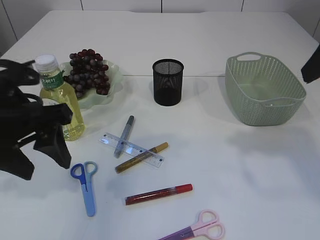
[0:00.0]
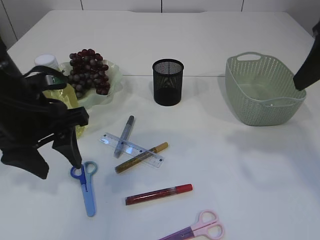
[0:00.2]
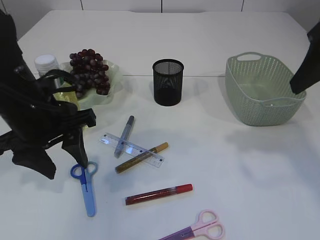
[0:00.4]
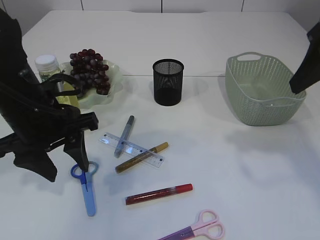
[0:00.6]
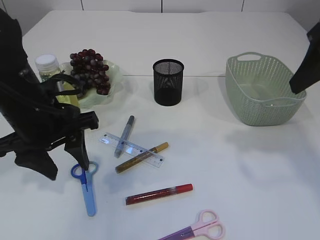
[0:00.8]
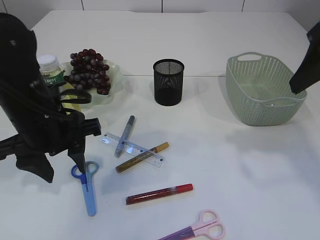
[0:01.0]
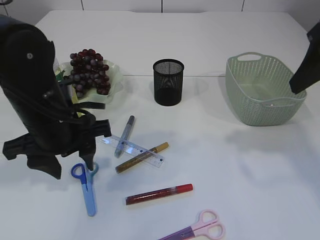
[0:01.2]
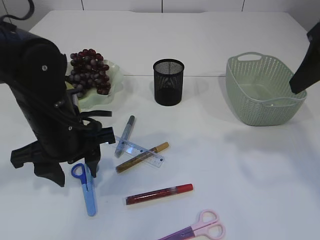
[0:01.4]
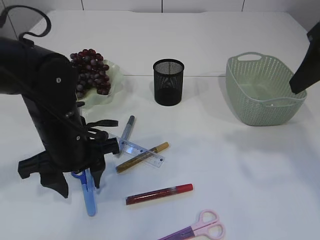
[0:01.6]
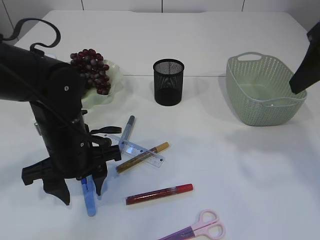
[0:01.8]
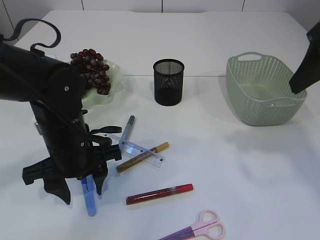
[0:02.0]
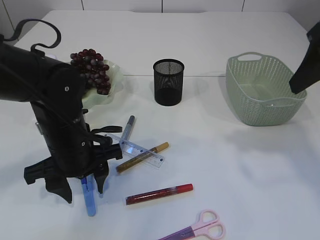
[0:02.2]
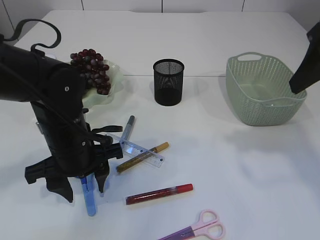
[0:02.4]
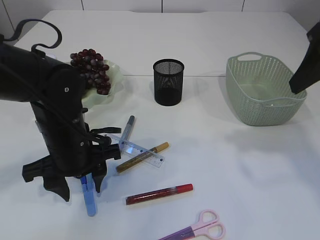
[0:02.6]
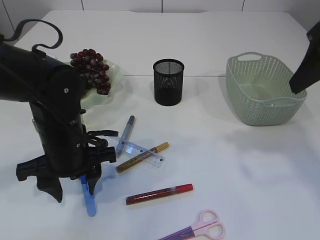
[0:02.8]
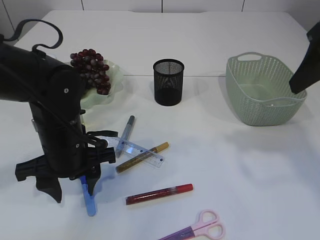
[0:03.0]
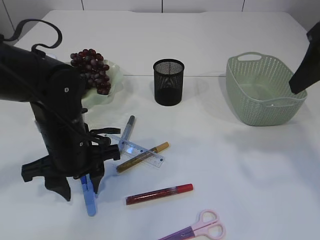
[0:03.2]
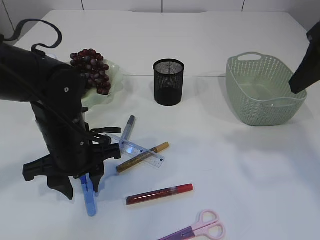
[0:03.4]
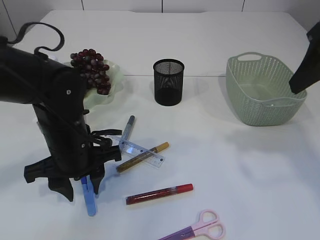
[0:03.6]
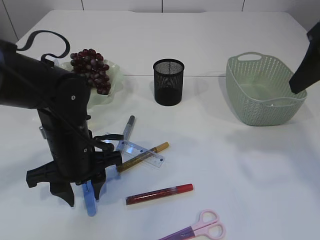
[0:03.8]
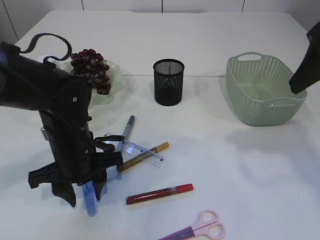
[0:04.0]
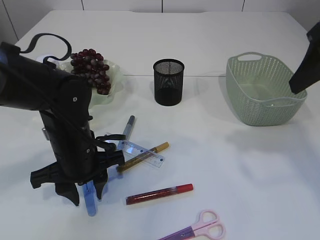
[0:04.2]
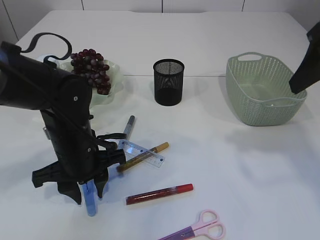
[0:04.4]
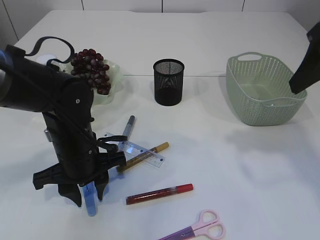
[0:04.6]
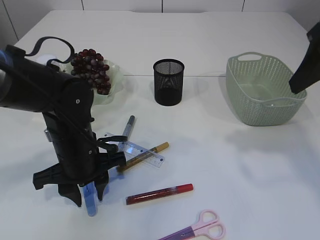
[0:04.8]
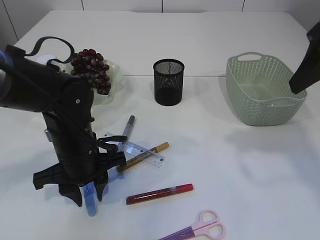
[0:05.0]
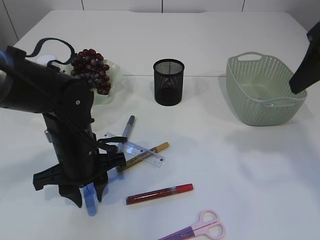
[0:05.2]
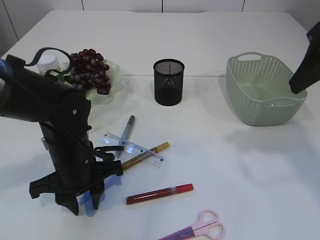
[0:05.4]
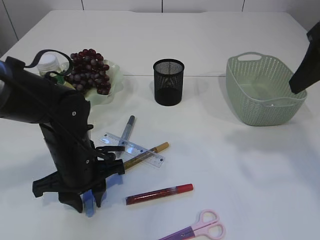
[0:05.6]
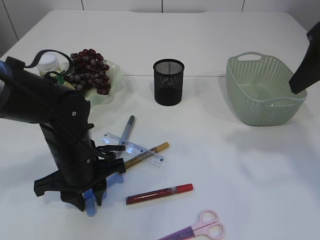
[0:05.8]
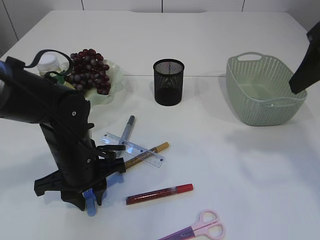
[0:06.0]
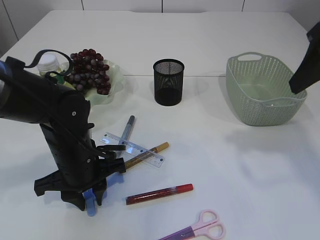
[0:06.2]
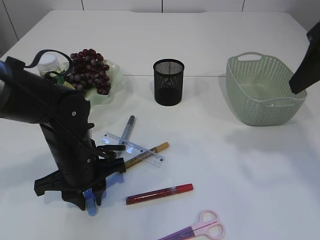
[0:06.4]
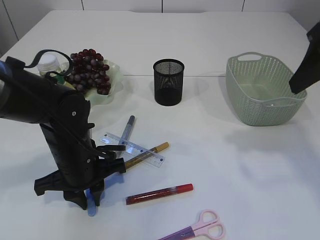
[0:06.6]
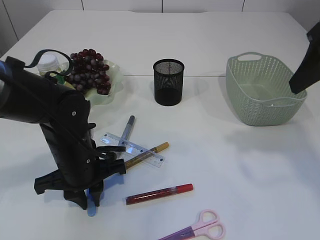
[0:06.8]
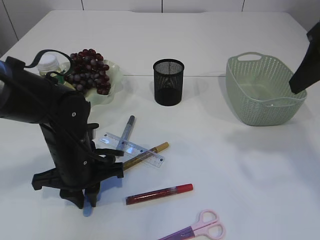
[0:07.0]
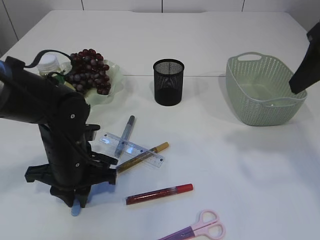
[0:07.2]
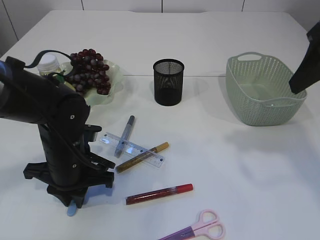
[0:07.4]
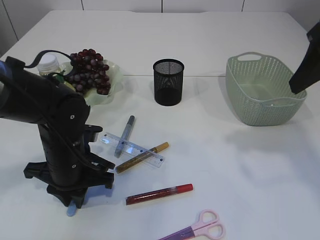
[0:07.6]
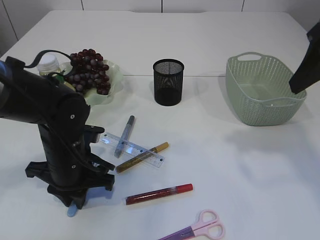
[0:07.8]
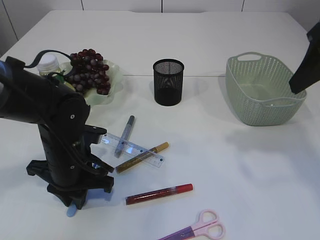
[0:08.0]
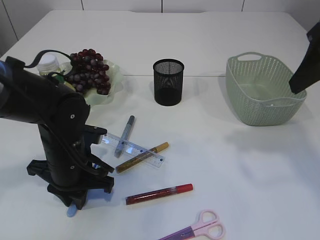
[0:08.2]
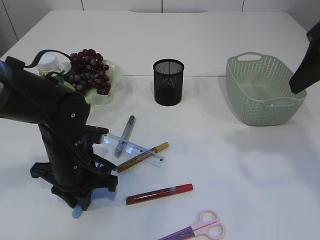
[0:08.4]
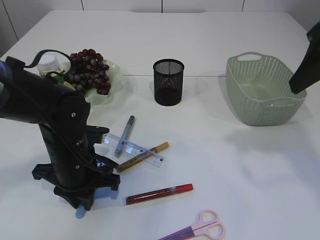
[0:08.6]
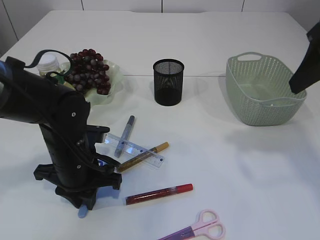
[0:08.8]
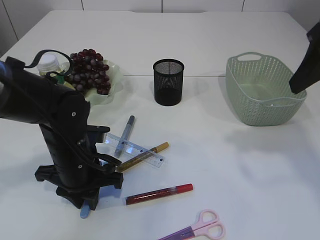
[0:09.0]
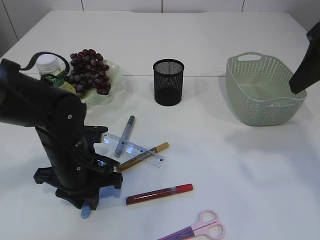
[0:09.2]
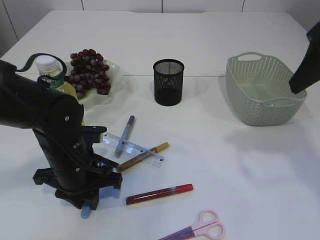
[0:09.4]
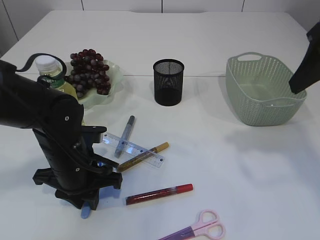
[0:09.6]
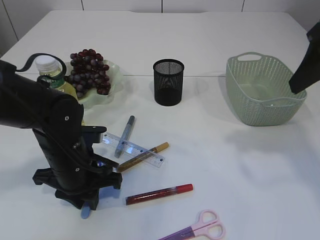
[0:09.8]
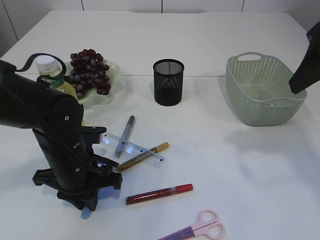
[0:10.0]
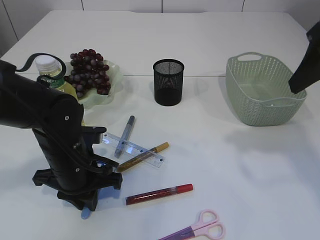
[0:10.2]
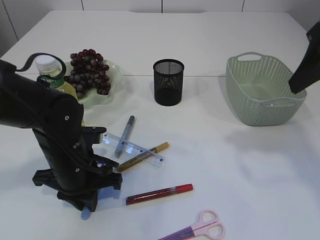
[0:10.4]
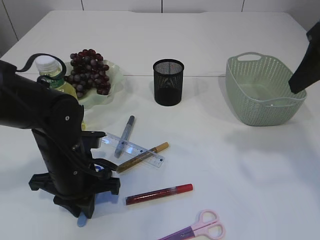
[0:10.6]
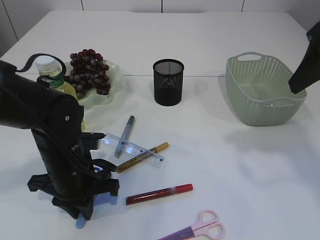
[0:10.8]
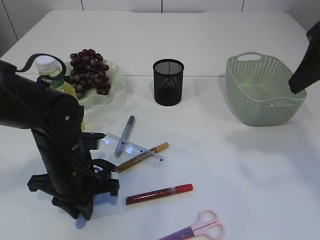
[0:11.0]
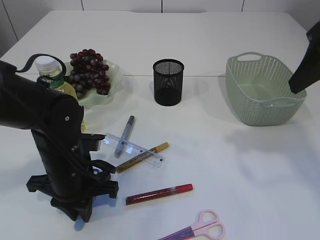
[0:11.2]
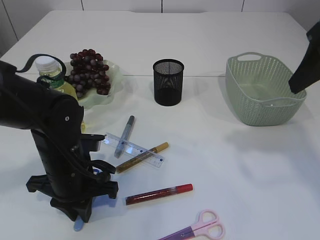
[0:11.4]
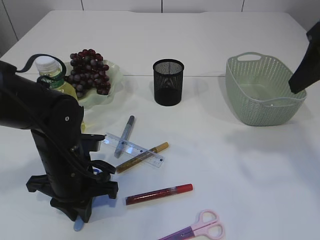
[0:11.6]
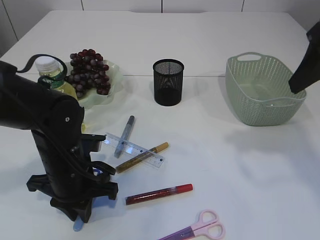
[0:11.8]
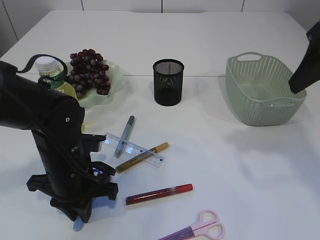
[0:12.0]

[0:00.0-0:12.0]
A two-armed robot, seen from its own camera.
0:00.0 to 0:01.6: The left gripper goes some 10 cm downward and to the right.
0:01.6 to 0:06.0: The grippers stay close to where they were, moving slightly.
0:07.6 to 0:09.0: There are only small adjustments of the grippers.
0:09.0 to 0:10.4: Both grippers stay about where they are.
0:10.4 to 0:12.0: There are only small adjustments of the grippers.

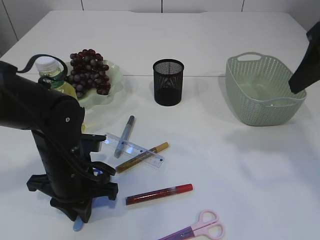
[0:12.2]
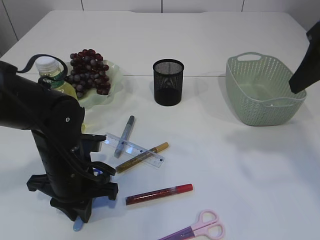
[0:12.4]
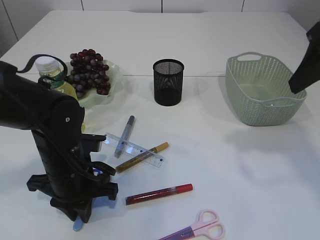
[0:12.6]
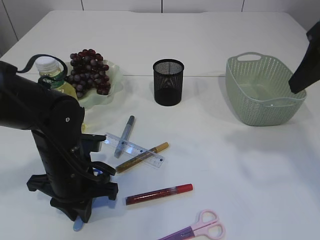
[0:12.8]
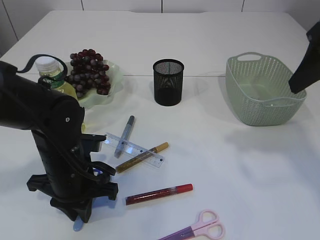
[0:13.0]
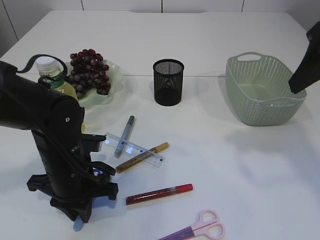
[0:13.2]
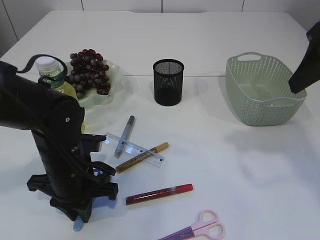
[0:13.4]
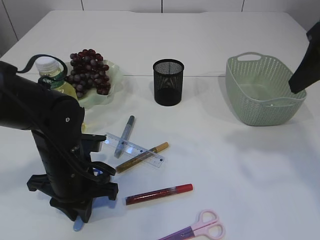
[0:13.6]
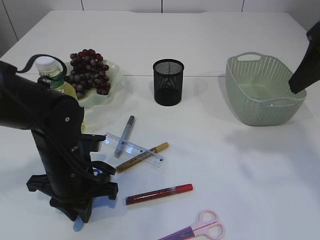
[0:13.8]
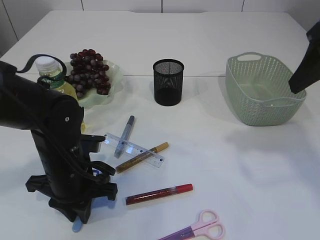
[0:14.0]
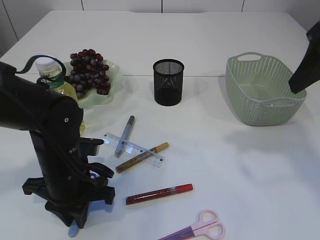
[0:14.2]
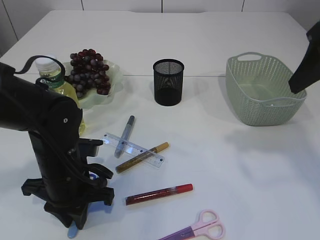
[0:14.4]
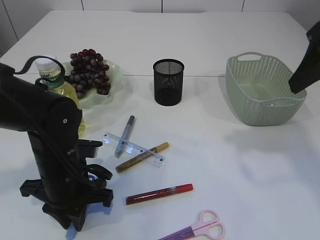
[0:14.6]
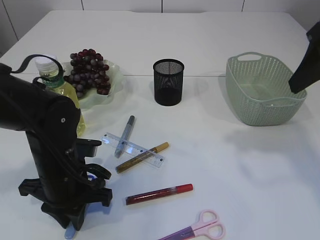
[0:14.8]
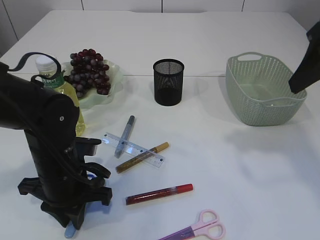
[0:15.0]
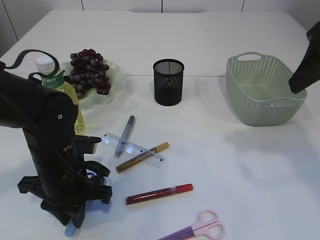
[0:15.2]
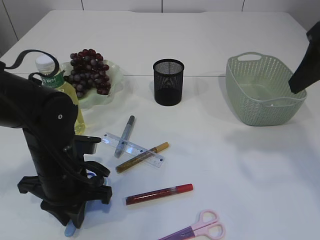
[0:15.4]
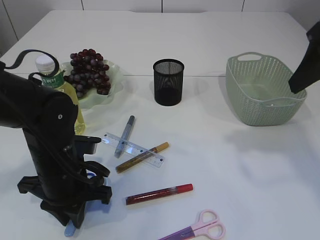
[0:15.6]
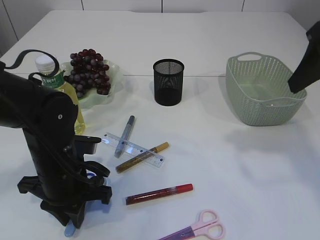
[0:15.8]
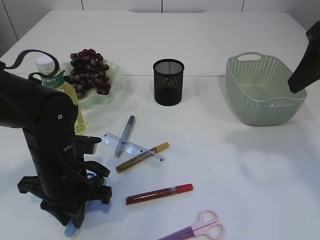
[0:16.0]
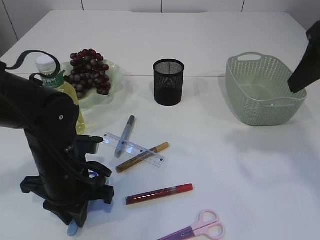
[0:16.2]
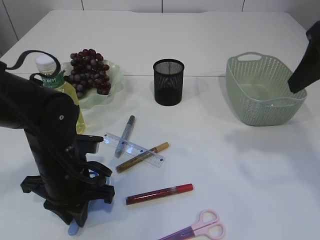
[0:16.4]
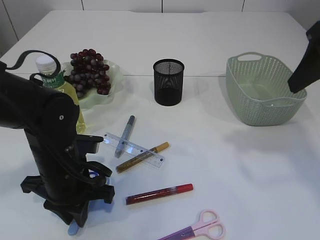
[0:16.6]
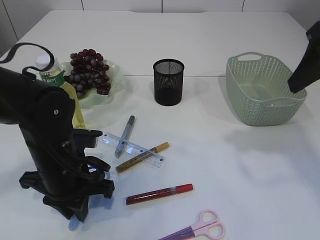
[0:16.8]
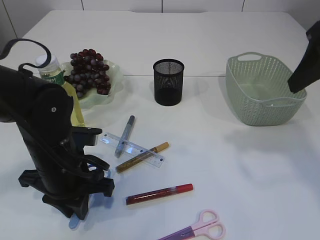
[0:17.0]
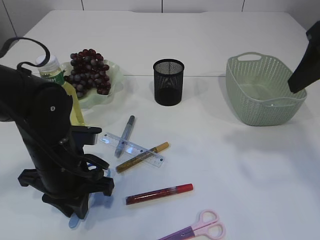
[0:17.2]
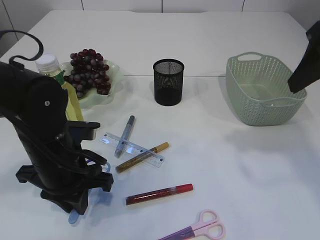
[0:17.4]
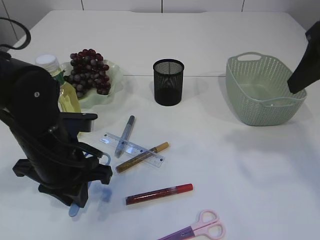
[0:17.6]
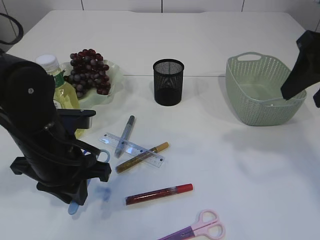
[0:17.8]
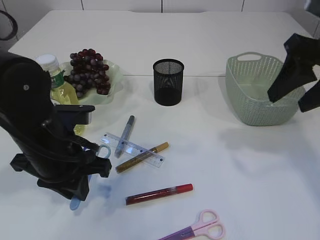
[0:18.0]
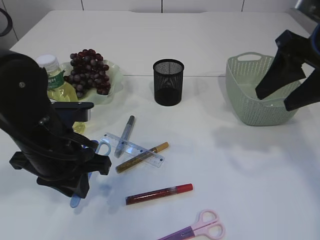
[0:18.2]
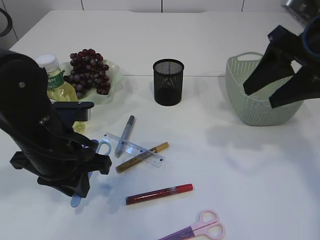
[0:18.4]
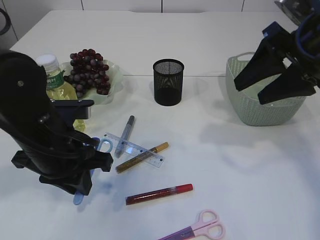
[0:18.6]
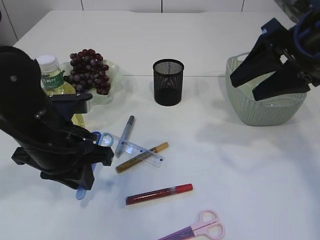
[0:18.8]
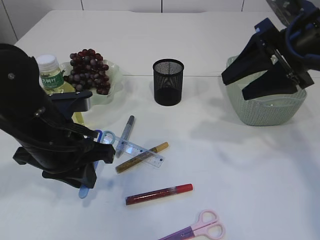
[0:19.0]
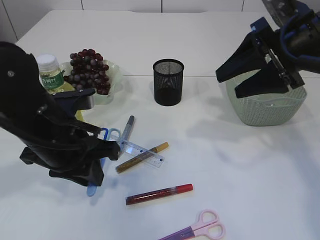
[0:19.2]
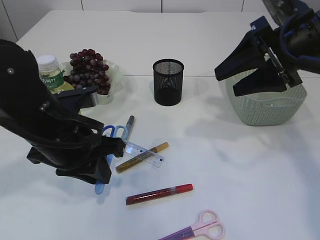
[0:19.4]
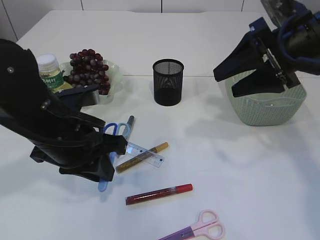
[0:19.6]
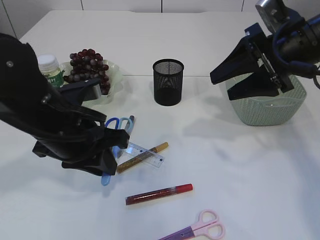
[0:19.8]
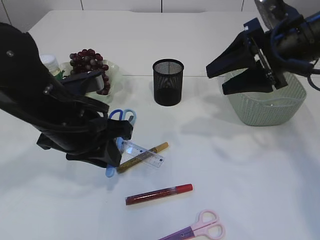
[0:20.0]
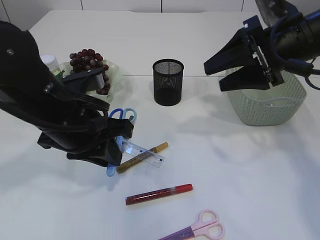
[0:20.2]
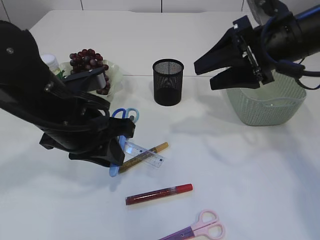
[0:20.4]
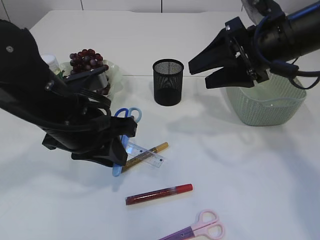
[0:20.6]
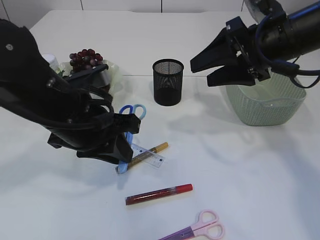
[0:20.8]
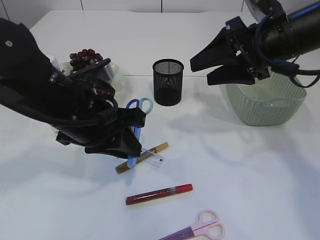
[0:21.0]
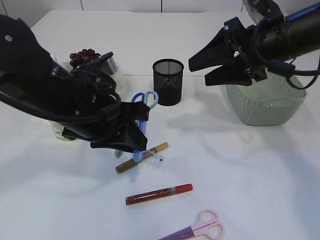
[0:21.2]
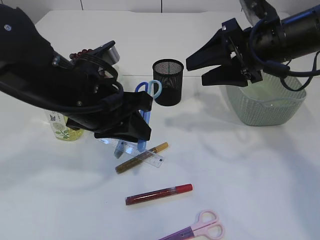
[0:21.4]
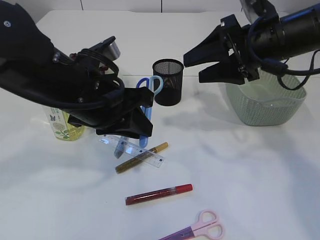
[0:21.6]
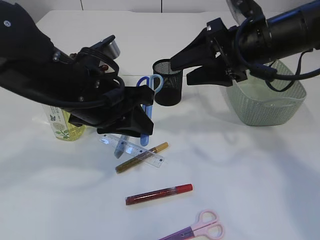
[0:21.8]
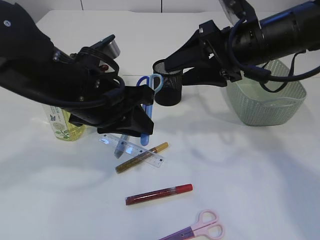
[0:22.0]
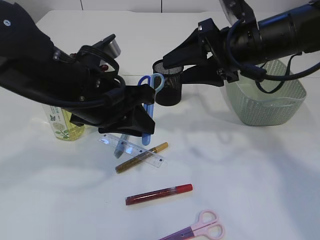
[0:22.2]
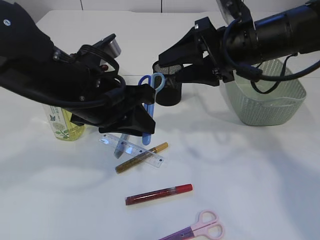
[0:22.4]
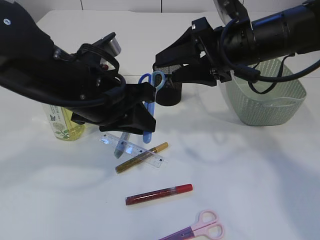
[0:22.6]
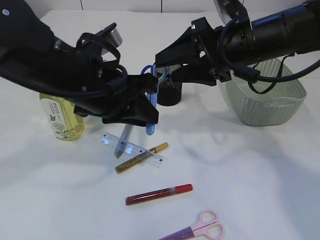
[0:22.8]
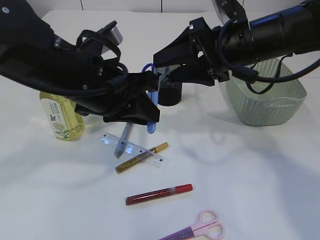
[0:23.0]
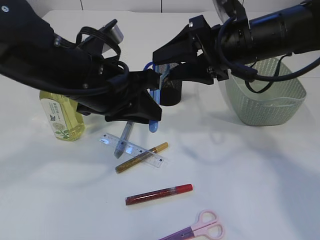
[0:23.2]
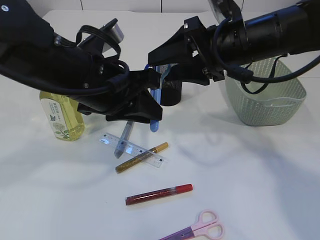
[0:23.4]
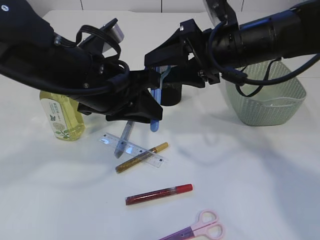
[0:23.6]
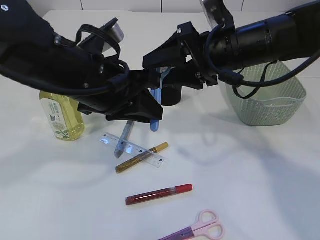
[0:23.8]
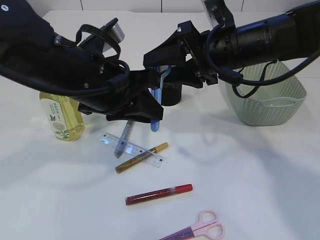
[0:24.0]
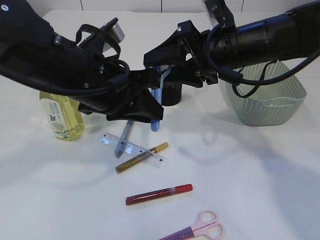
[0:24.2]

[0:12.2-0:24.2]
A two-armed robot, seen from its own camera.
Step, 0:12.2 to 0:19.2: pick up the blue scissors.
0:12.2 to 0:16.6: The two grippers keep their place.
0:16.6 to 0:18.2: The left gripper goes approximately 5 cm upward.
0:18.2 to 0:19.8: The right gripper moves about 5 cm.
0:19.8 to 0:21.2: The grippers move only a little.
0:21.2 to 0:22.6: The grippers stay close to where they were, moving slightly.
0:22.6 to 0:24.2: The grippers stay close to where they were, moving slightly.
